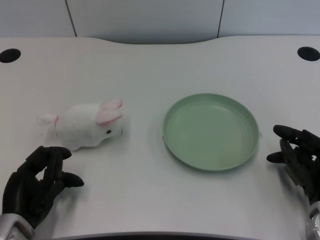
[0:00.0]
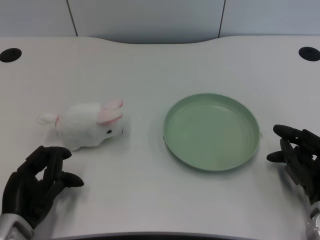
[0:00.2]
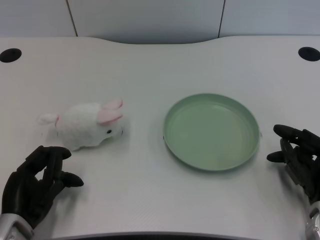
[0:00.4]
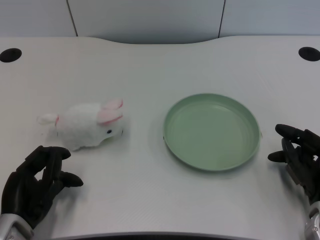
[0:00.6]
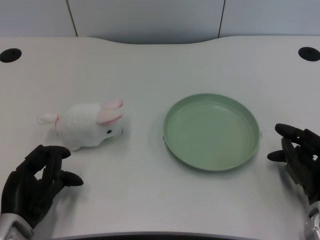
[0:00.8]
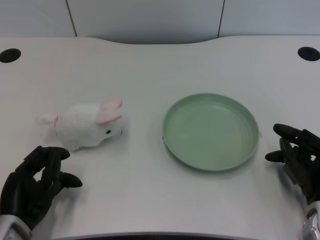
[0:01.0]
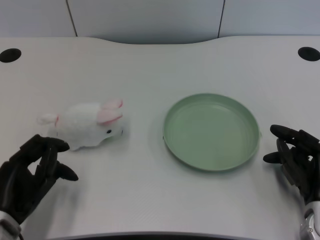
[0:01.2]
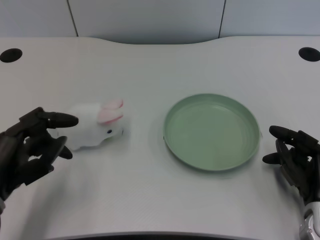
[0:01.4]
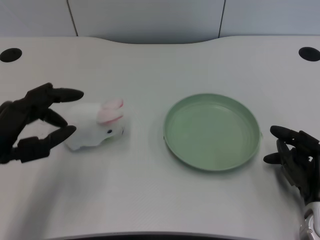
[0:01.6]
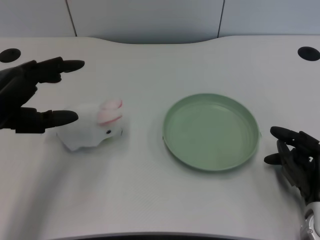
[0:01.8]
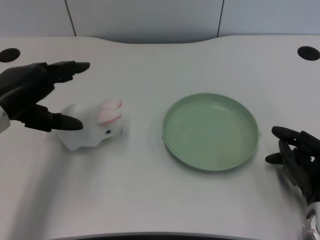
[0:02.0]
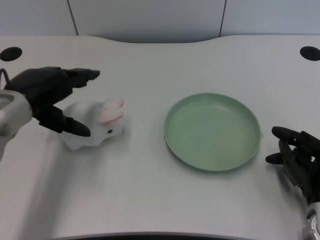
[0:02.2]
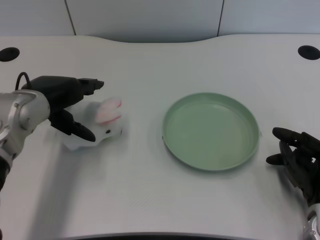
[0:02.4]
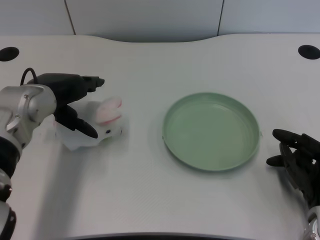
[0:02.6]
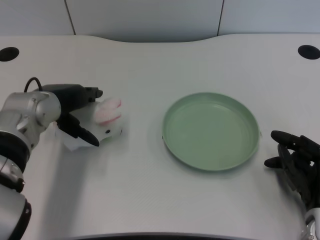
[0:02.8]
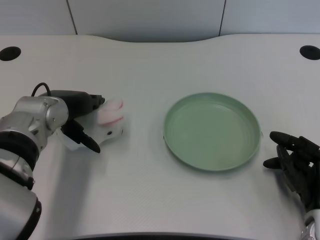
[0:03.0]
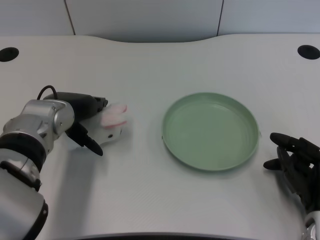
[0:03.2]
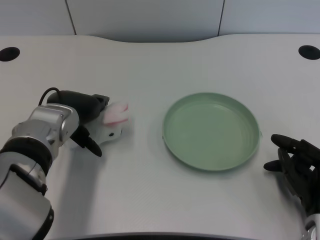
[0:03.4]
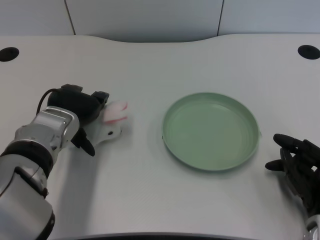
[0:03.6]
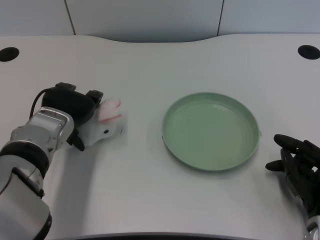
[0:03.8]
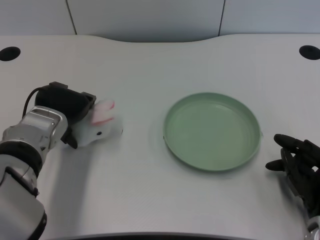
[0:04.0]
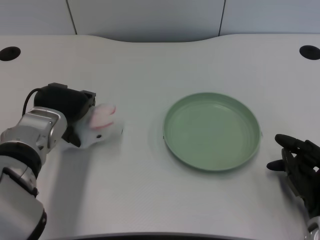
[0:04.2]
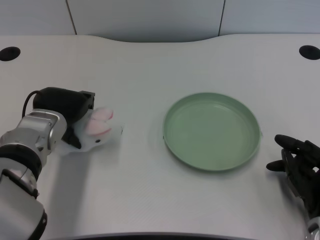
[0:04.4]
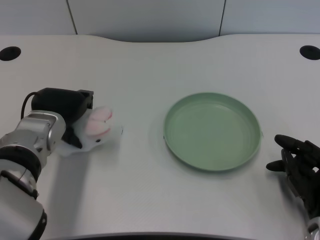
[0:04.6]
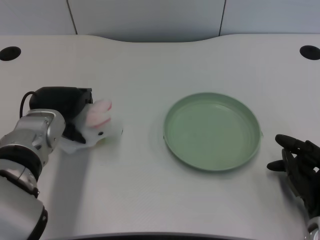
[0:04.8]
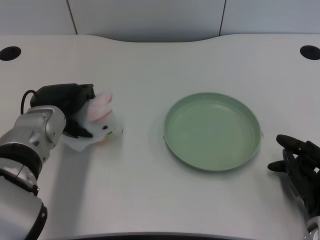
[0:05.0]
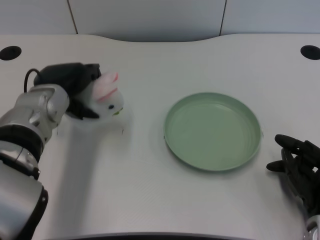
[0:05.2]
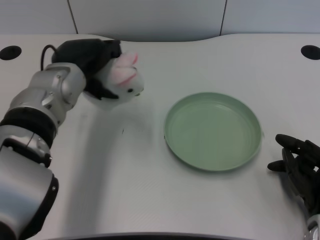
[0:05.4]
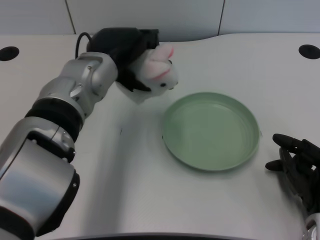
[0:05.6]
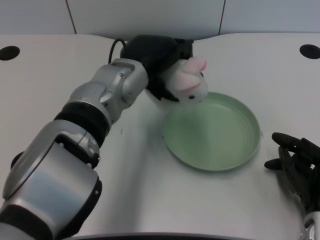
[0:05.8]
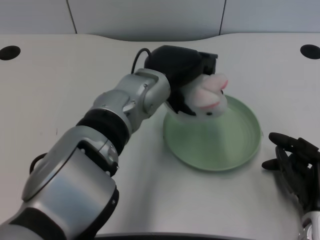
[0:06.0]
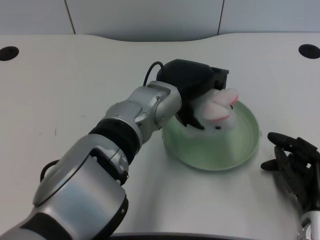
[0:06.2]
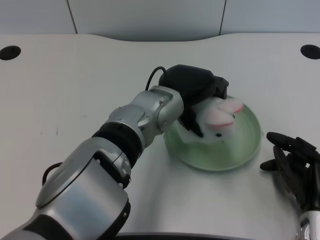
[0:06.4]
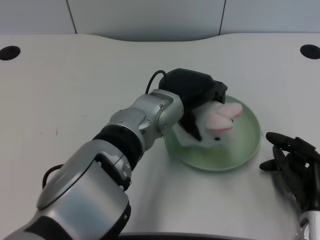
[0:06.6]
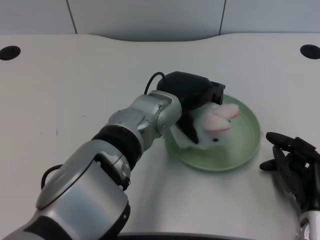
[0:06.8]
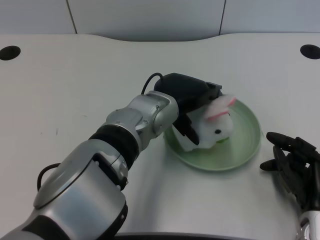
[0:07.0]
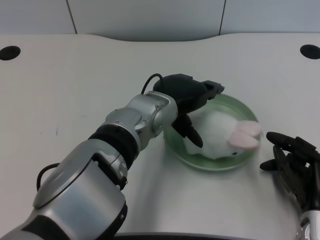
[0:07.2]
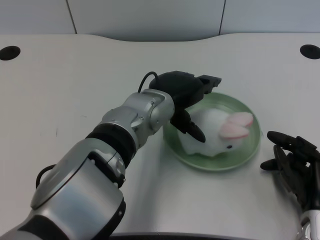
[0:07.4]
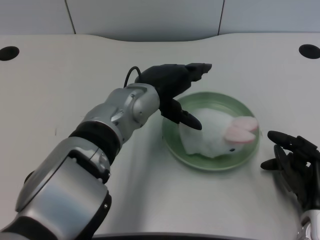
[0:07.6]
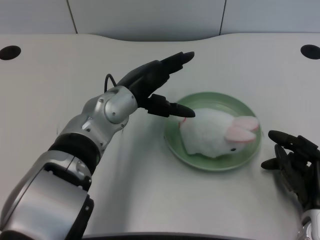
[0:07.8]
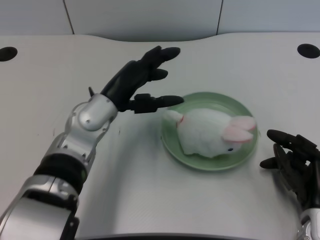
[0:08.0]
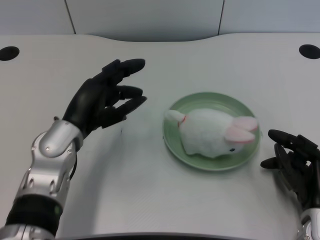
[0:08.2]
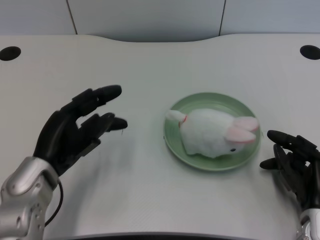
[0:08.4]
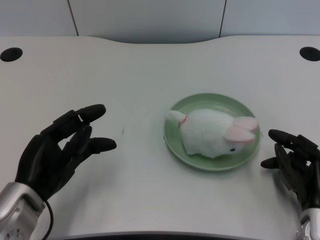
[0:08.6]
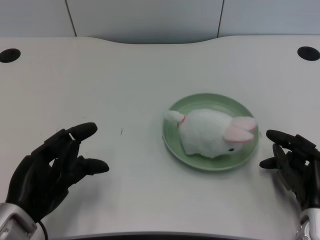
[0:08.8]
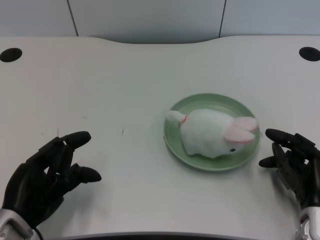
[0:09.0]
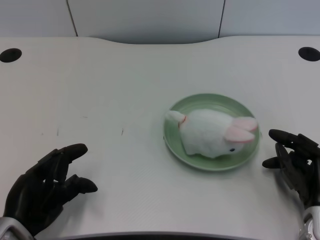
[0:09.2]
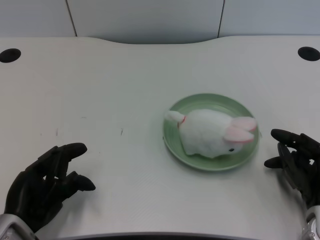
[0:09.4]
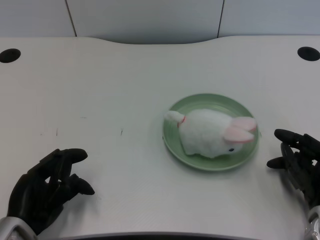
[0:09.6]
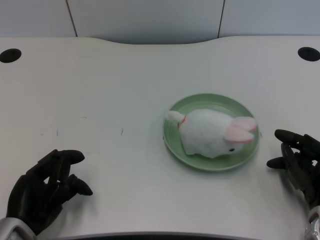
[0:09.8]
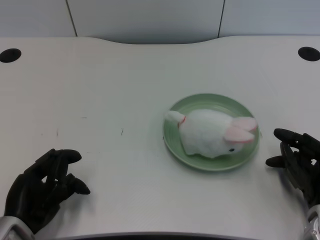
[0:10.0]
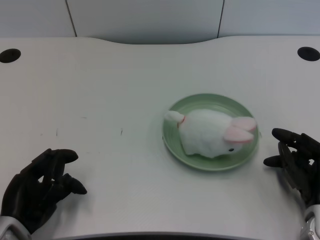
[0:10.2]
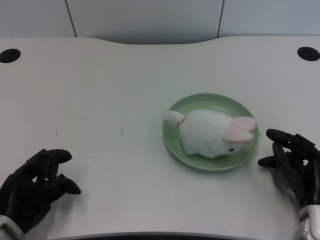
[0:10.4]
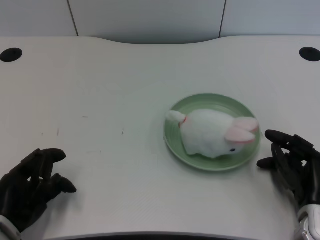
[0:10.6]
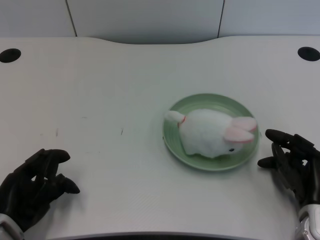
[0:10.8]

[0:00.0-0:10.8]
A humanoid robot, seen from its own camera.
Task of the whole recording: pick up the rabbit doll from the table and place it on the plate.
Step, 1.2 to 5.0 s: Grasp the rabbit doll with the left gripper.
Step, 5.2 to 7.2 s: Place the rabbit doll into the plate with the left gripper.
1.6 to 3.0 s: The left hand shifts about 15 cm forward and to the right.
4.6 to 6.2 s: The left hand goes some 15 cm to the right.
6.2 to 7.8 s: The left hand heads to the left, covering approximately 5 cm.
7.8 to 9.2 s: The left hand goes roughly 25 cm to the left, backward and downward.
9.2 to 10.8 s: The hands stay close to where they were, moving slightly.

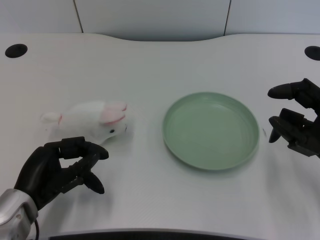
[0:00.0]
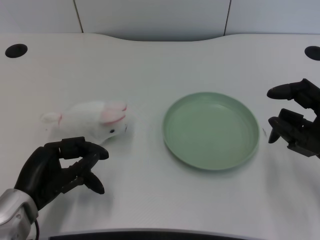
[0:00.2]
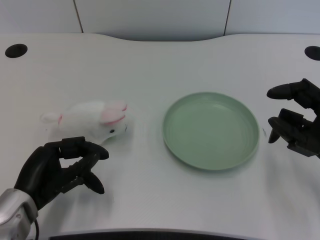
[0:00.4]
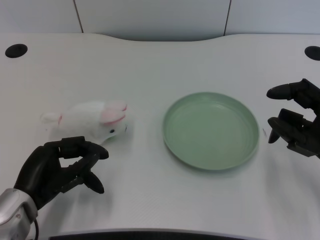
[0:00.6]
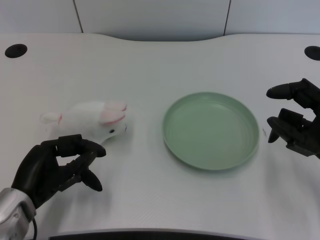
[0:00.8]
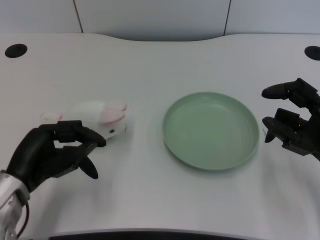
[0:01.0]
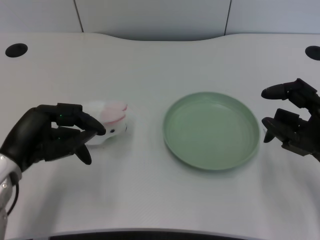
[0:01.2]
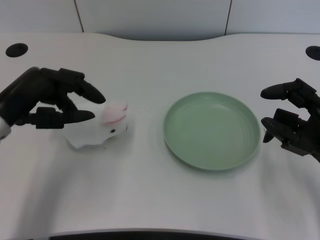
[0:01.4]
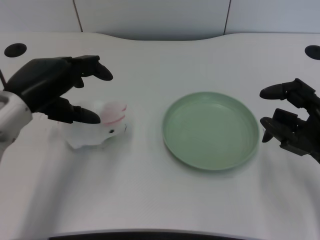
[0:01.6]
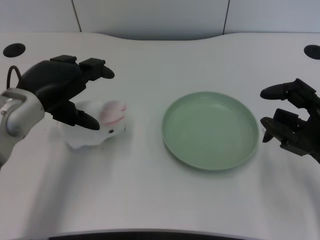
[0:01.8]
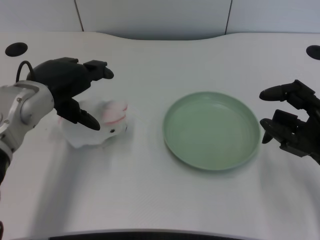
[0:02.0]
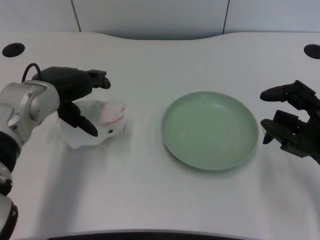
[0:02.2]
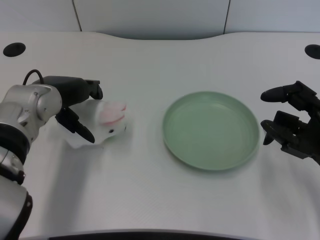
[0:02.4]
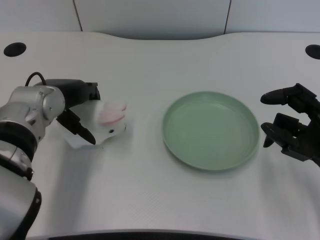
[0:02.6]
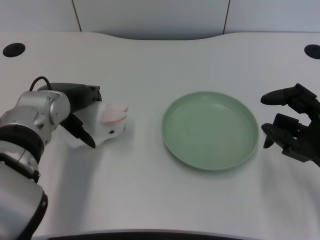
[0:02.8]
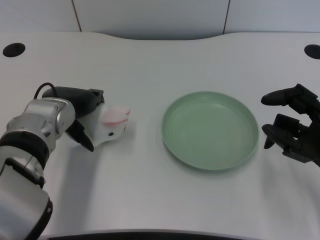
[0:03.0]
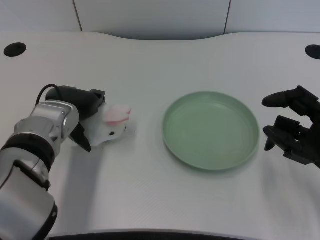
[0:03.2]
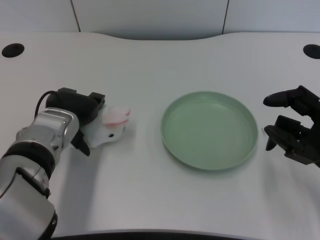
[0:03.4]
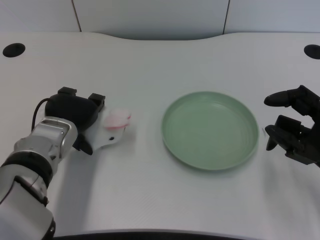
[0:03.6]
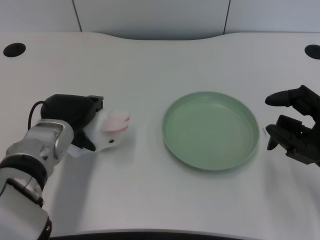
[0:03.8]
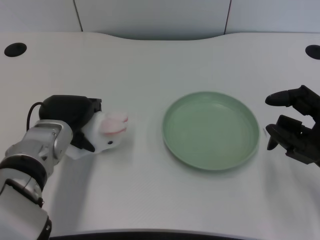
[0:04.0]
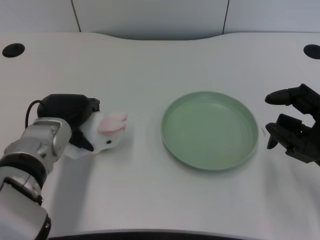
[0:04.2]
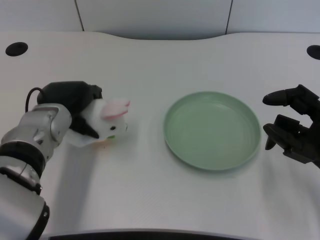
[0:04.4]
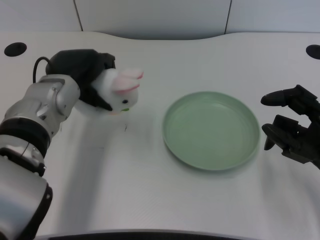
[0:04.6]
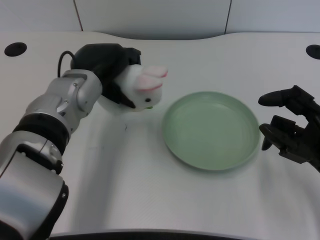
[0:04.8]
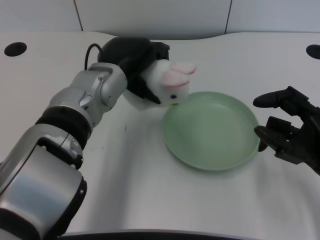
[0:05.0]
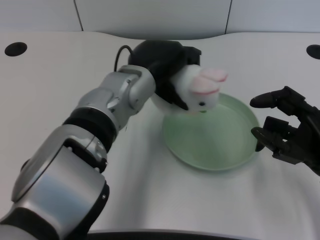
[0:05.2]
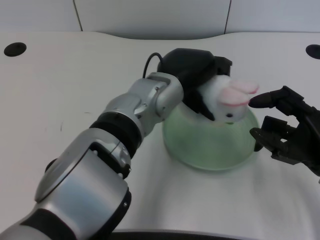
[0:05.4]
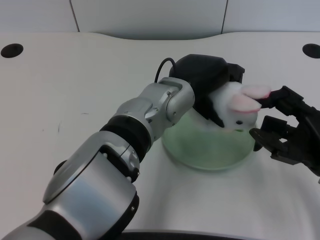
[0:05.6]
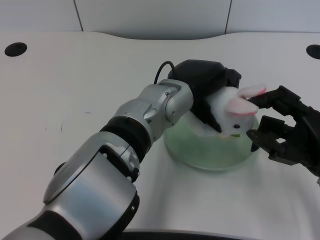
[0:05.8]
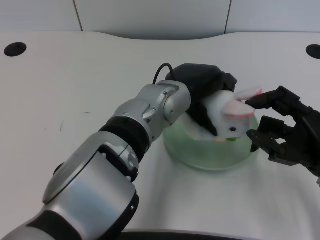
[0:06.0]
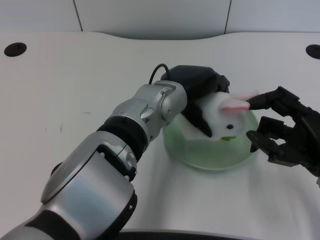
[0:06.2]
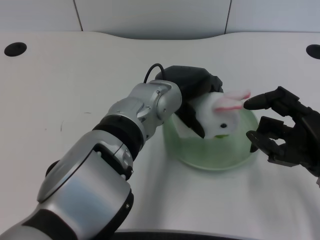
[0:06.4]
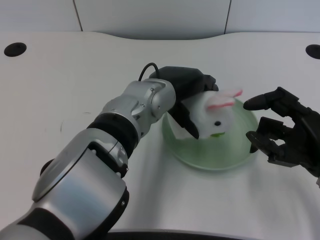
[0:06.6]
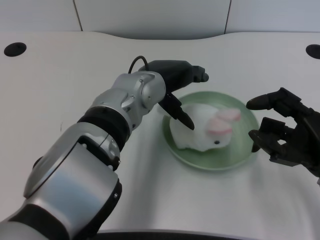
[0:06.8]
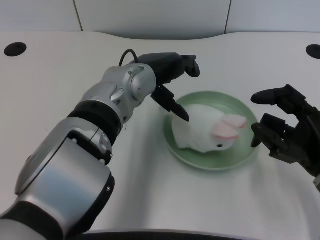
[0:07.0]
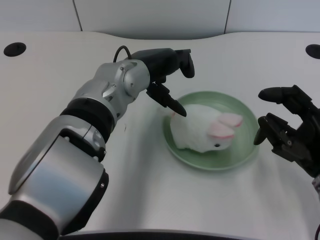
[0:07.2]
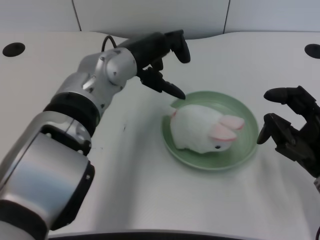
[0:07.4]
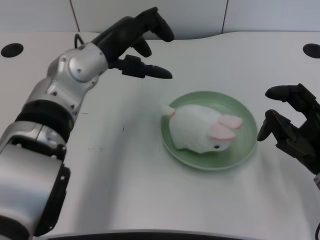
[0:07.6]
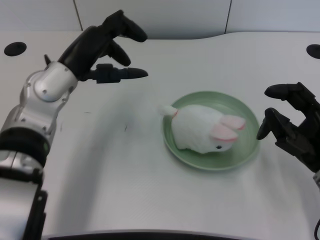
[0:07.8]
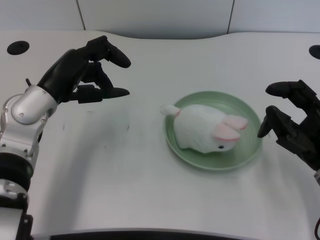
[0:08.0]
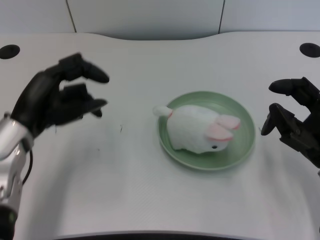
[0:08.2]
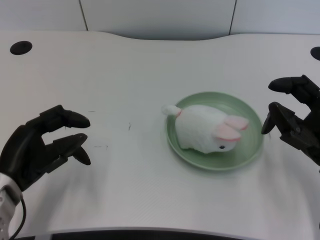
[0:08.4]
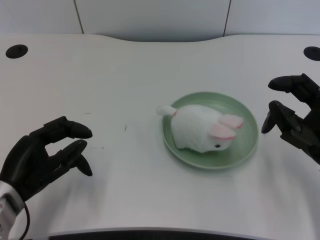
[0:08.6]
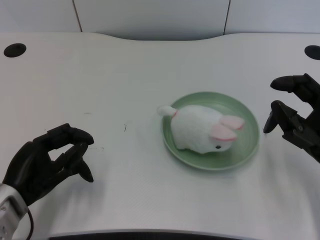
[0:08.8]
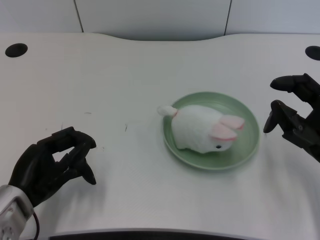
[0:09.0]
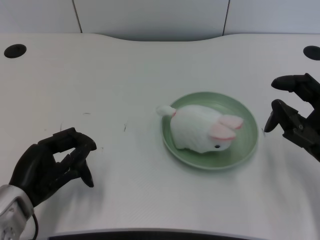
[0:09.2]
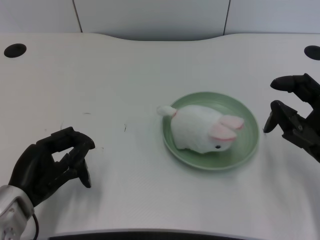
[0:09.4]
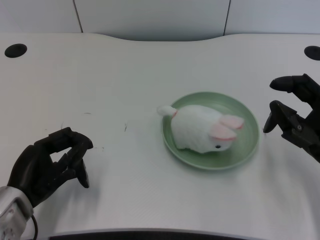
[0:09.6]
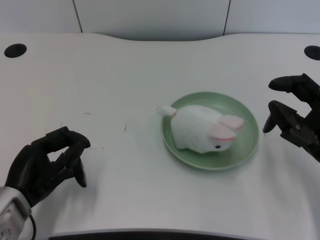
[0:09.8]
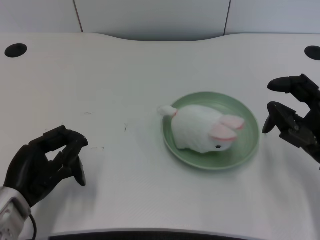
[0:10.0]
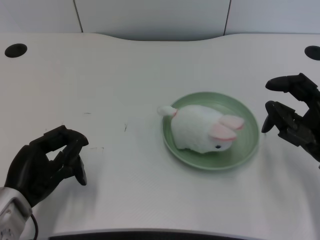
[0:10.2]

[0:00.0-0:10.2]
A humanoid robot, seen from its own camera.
Task of the whole recording: pick up the rabbit doll from the table and place it on the plate.
Step, 1.0 to 4.4 s: Grasp the rabbit doll with the left gripper.
Step, 4.6 to 6.8 s: Place the rabbit doll into the plate with the left gripper.
1.4 to 3.0 s: The left hand is displaced to the right and forward by about 10 cm.
3.0 to 4.4 s: The hands stay close to where they were, moving slightly.
4.4 to 5.8 s: The left hand heads to the right, covering roughly 15 cm.
5.8 to 7.2 s: The left hand heads to the left, covering some 5 cm.
7.2 to 8.8 s: The left hand moves to the left, backward and downward, some 25 cm.
8.8 to 10.2 s: The hands move only a little.

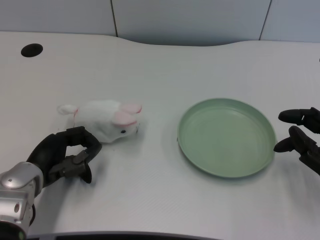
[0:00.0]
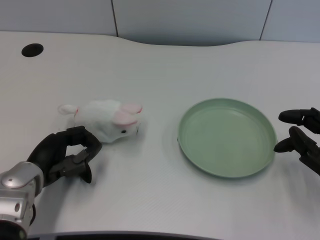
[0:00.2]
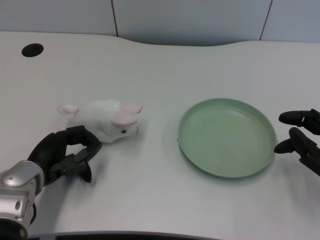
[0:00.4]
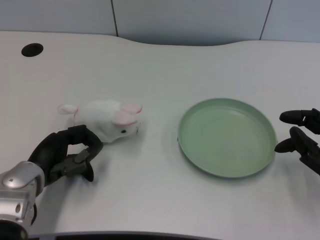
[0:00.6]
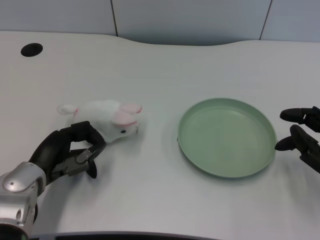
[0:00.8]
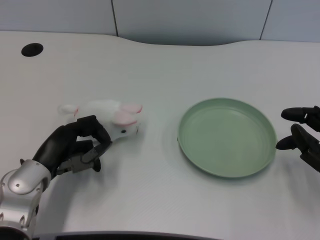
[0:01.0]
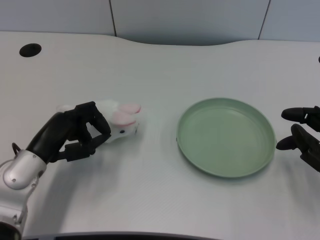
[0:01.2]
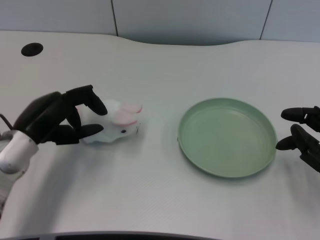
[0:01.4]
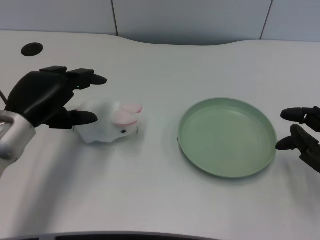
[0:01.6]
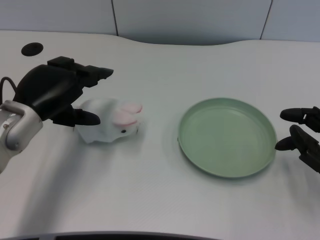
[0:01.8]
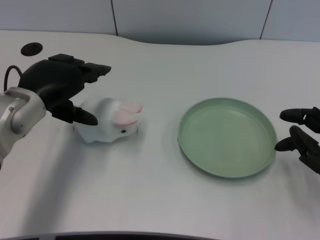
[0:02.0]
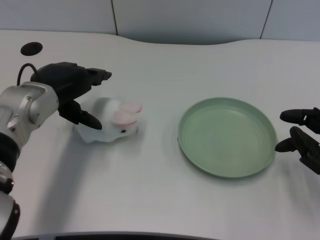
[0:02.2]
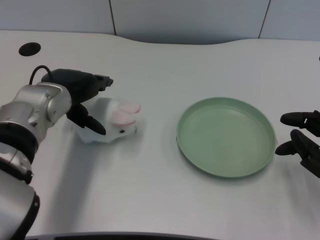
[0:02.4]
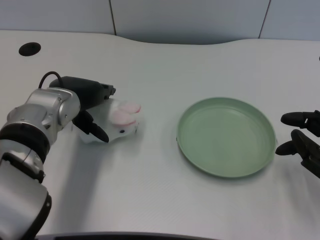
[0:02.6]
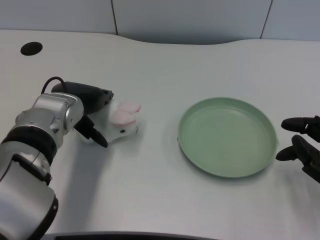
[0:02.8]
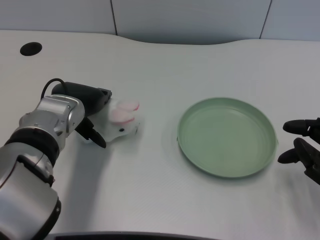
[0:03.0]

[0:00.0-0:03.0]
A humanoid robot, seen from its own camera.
Task of the whole recording: pick up the rabbit doll from the table and place it on the plate.
1.6 to 3.0 s: The left hand is displaced to the right by approximately 5 cm.
